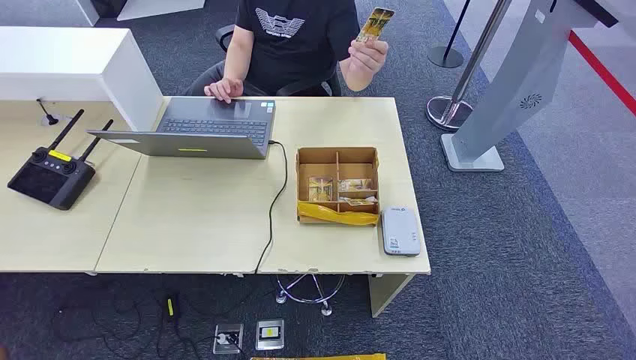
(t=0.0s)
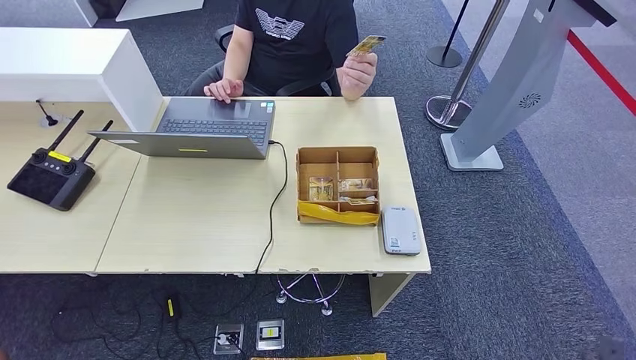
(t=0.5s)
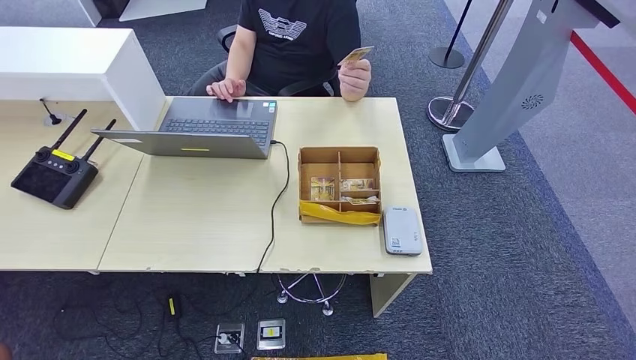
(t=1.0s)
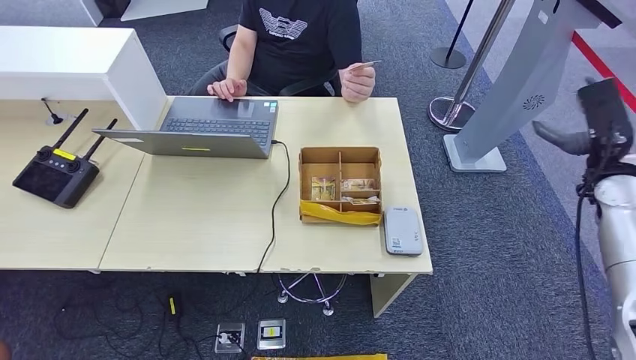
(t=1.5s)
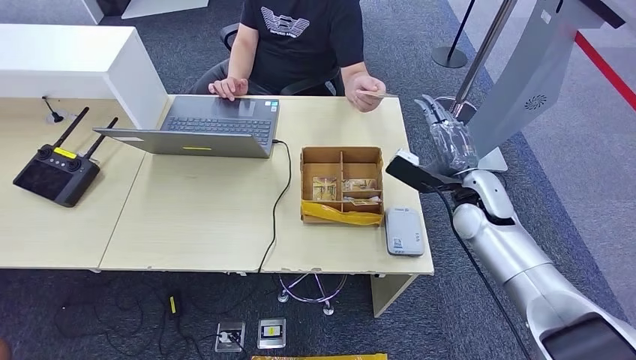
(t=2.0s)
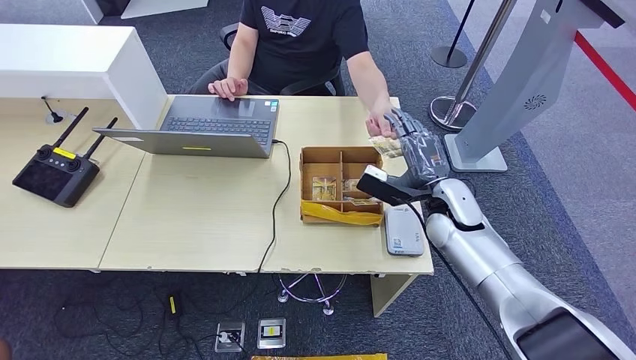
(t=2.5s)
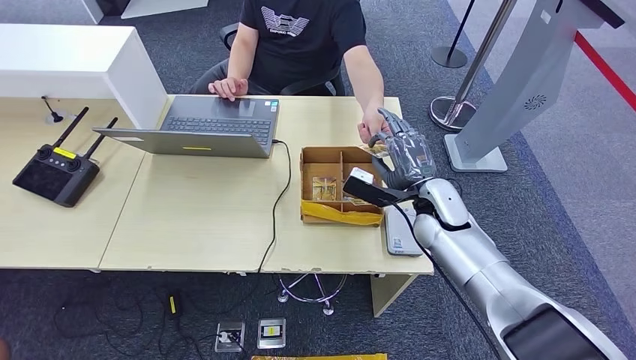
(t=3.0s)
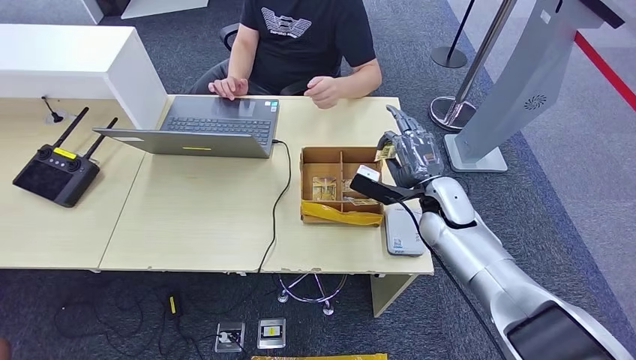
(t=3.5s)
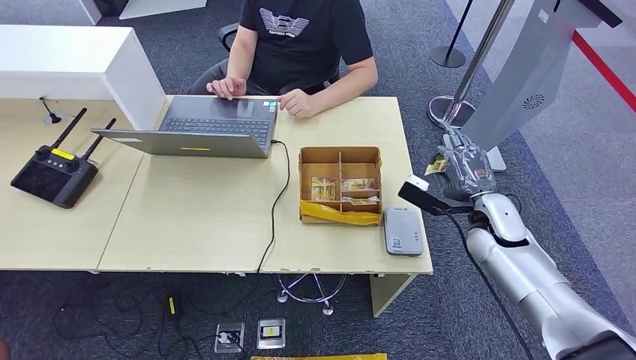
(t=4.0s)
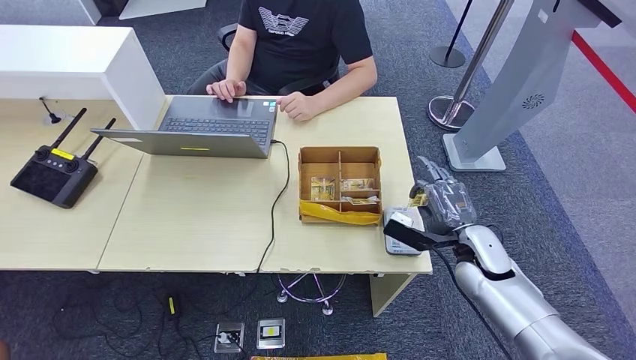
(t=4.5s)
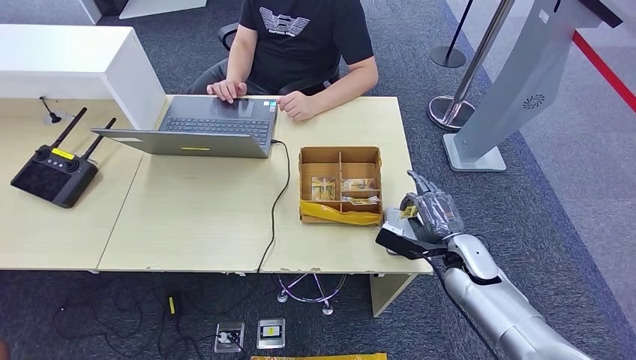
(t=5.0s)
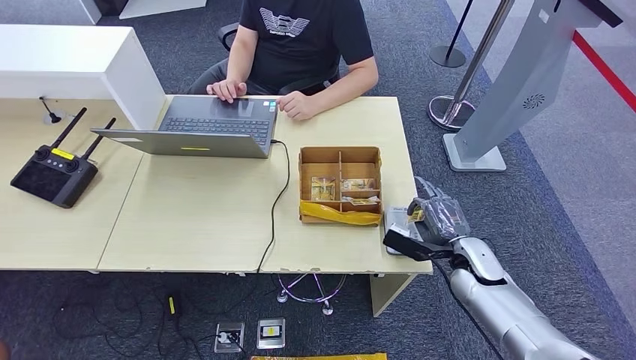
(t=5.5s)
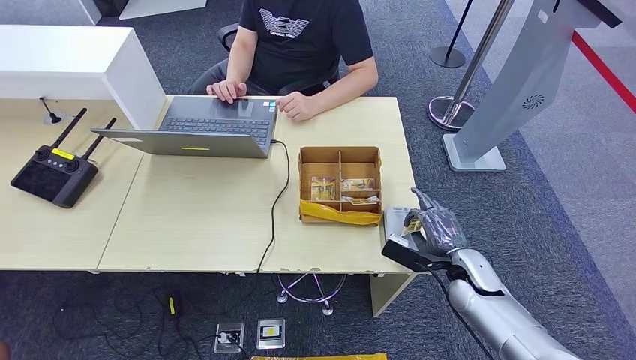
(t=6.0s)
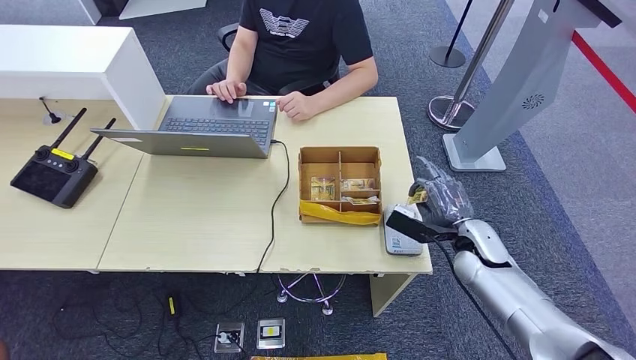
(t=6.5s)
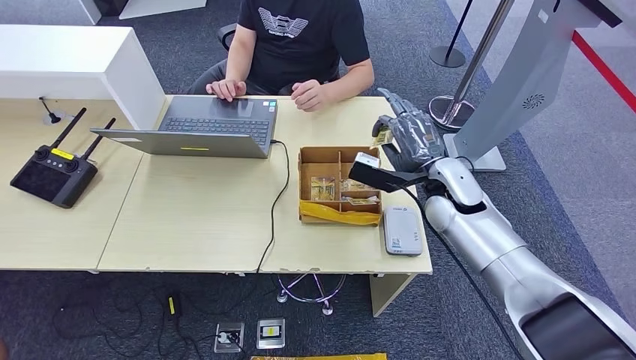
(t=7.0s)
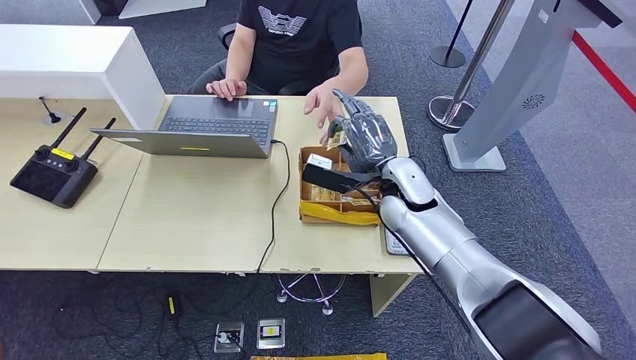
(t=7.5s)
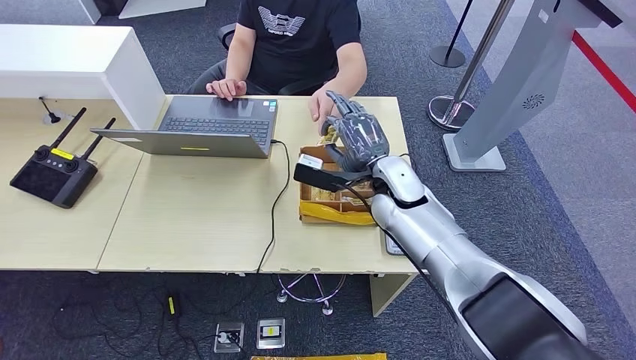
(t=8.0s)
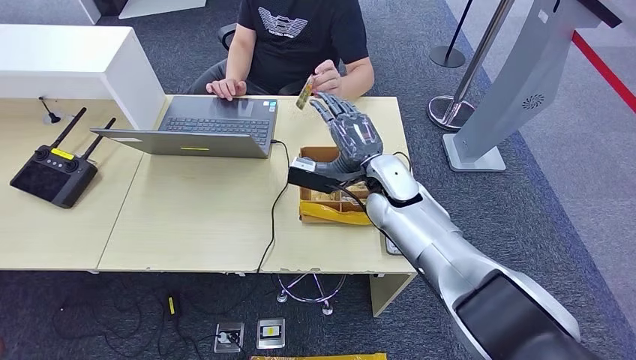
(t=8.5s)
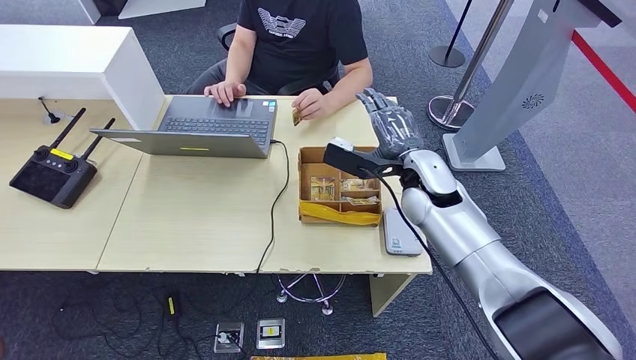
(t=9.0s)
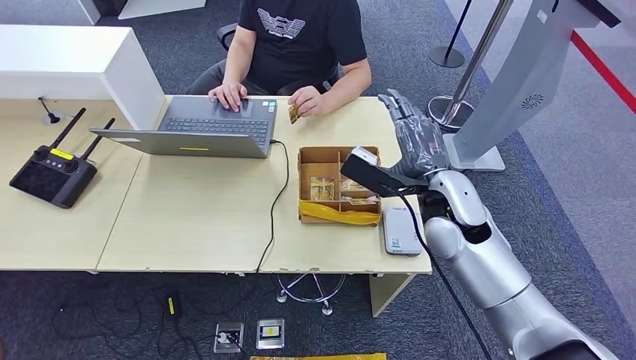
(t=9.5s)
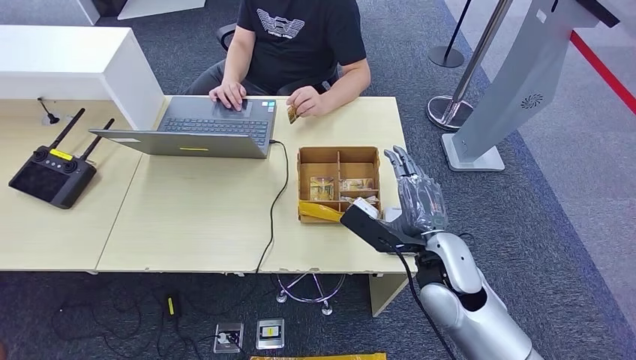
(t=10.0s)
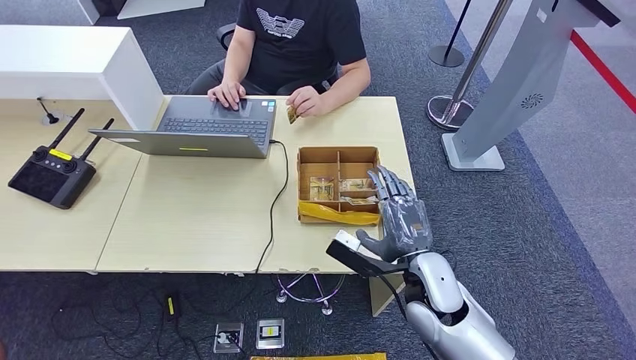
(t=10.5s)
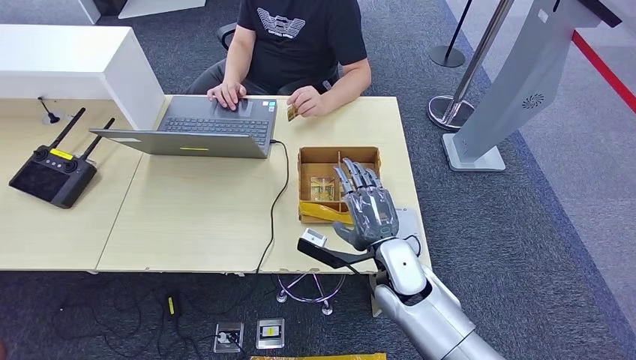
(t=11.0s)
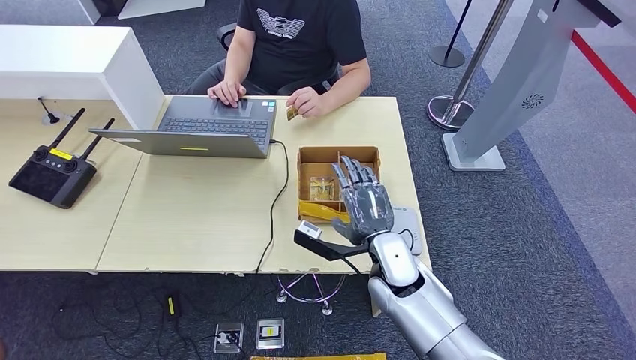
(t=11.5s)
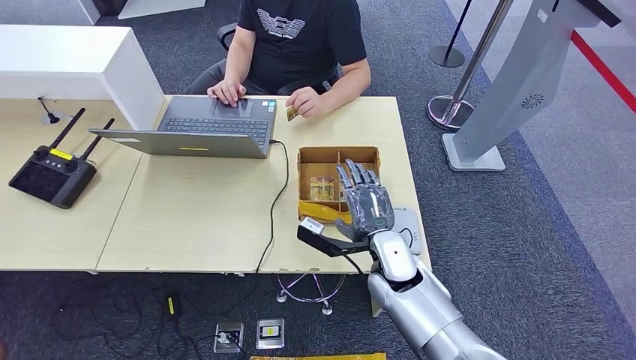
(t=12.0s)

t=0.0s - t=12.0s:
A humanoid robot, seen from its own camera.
Step, t=0.0s - t=3.5s: Take the ID card from the person's hand.
Step, t=5.0s - t=5.5s: Place the ID card on the card reader.
Step, t=6.0s - t=8.5s: Hand the ID card to the person.
t=2.0s - t=4.0s: The right hand goes to the left and returns, about 5 cm each way.
t=4.0s - t=6.0s: The right hand travels downward and backward by roughly 10 cm.
t=6.0s - t=8.0s: The right hand shifts roughly 25 cm to the left, upward and forward.
t=8.0s - t=10.0s: The right hand shifts about 15 cm backward.
t=10.0s - t=12.0s: The right hand shifts roughly 10 cm downward and to the left.

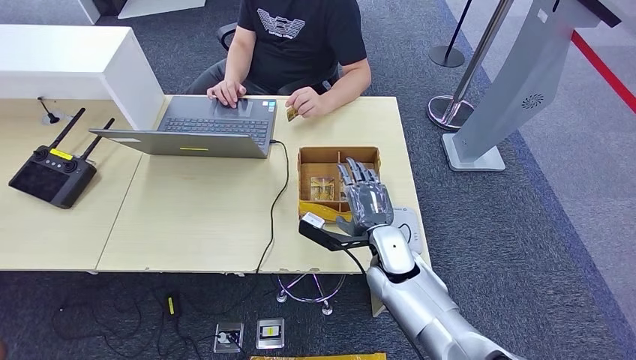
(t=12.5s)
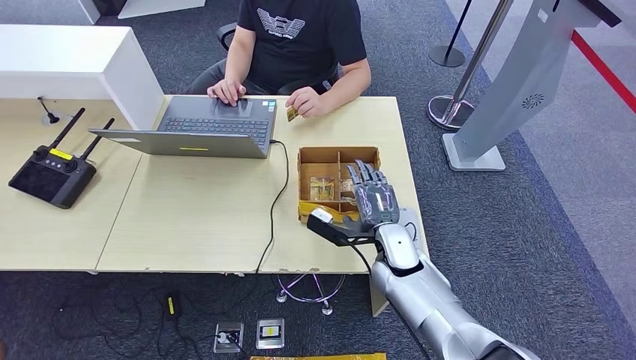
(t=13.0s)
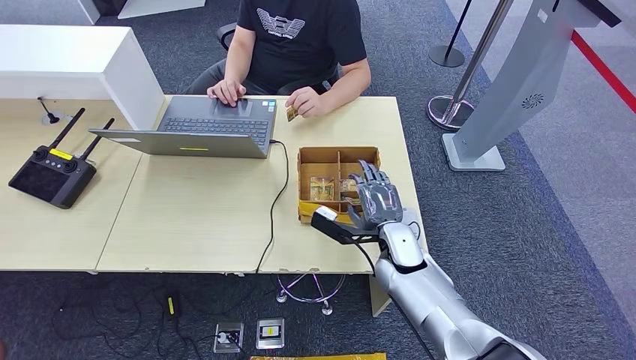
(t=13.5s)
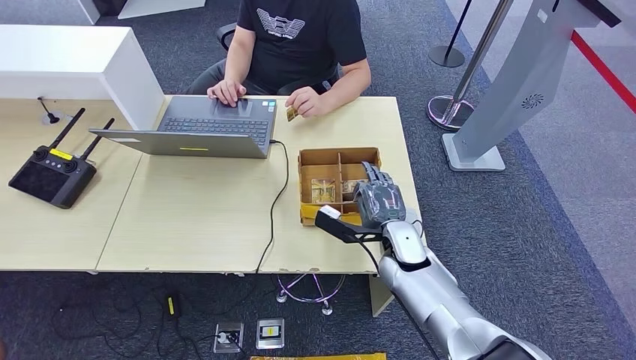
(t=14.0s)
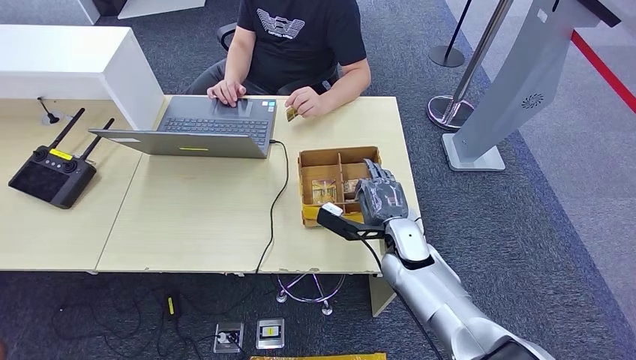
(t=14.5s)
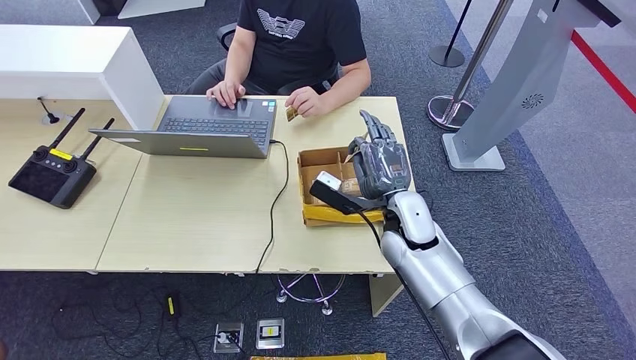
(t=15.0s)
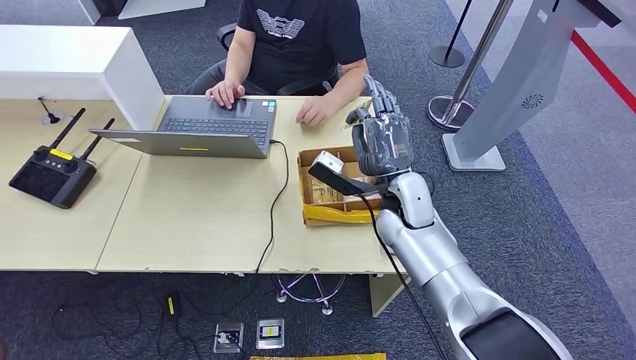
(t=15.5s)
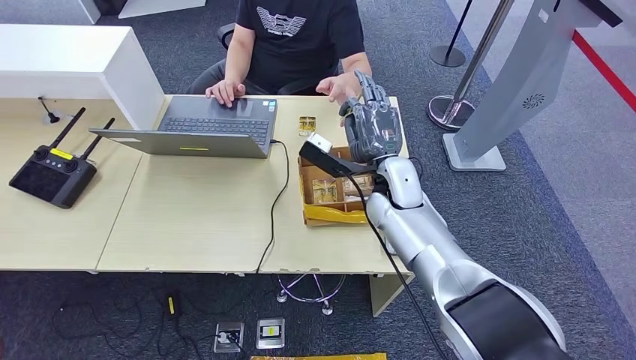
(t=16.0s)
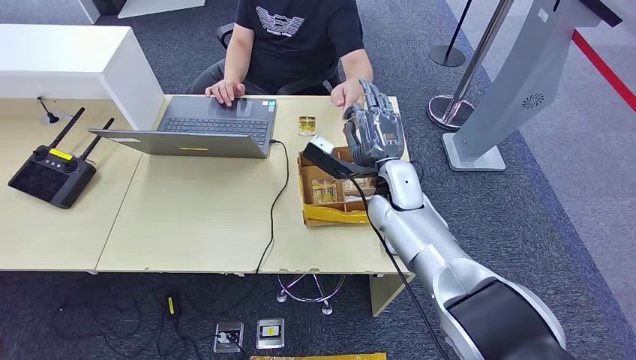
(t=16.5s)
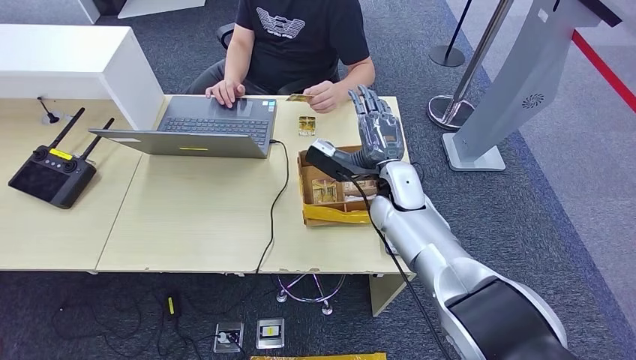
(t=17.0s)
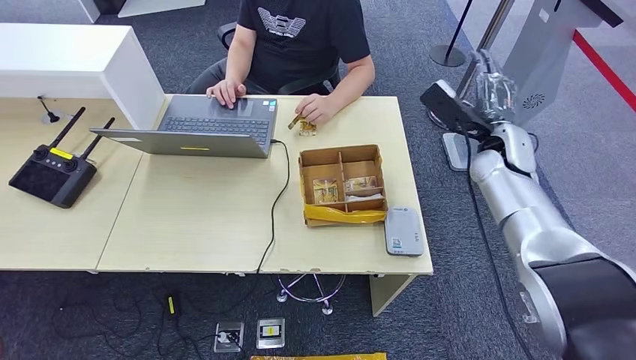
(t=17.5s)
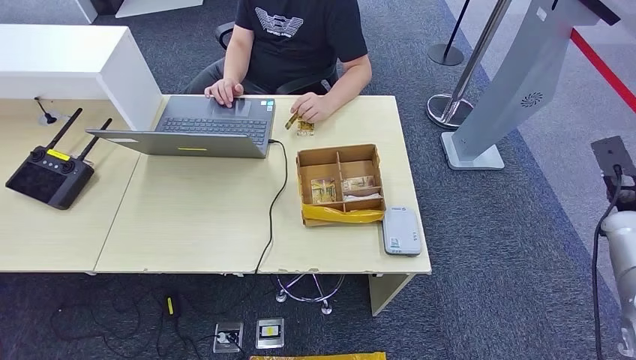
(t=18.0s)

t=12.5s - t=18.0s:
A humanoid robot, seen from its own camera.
Step, t=12.5s - t=15.0s: Pick up the room key from the key card box.
Step, t=15.5s - t=17.0s: Hand the room key to the person.
t=12.5s - t=14.5s: The hands move only a little.
t=14.5s - t=16.0s: The right hand moves upward and forward, approximately 10 cm.
t=16.0s - t=18.0s: The right hand travels to the right by some 40 cm.
